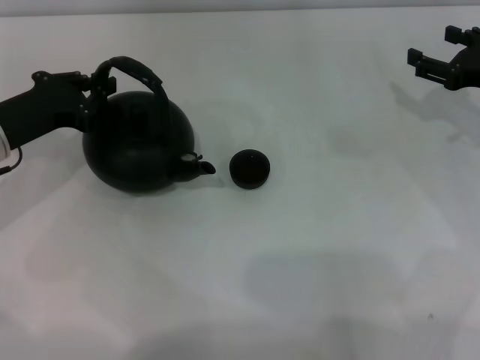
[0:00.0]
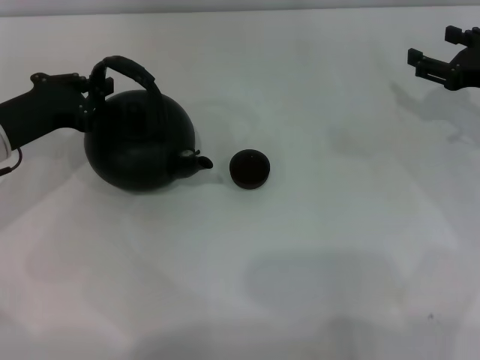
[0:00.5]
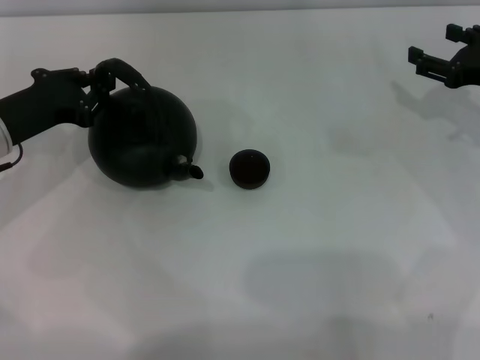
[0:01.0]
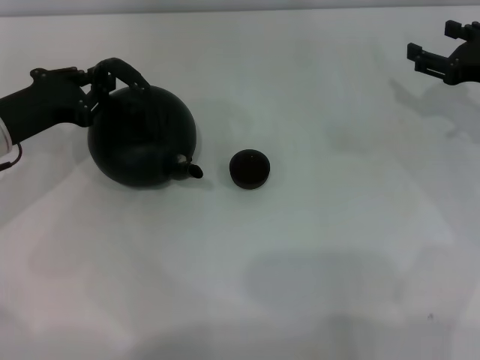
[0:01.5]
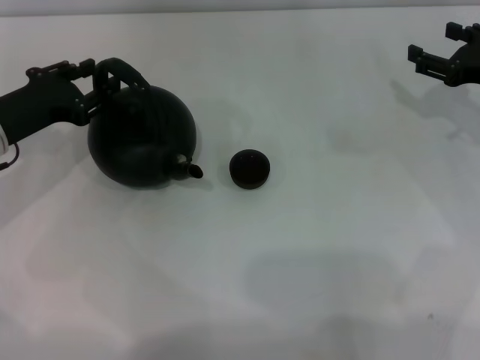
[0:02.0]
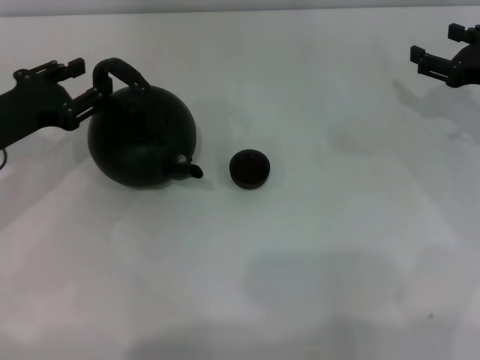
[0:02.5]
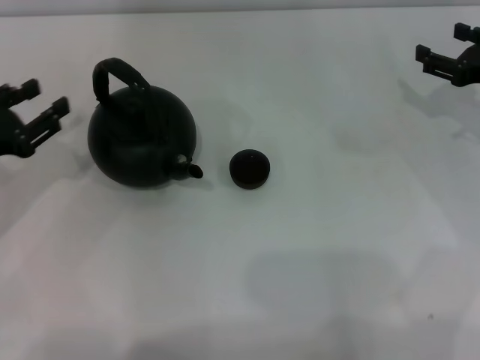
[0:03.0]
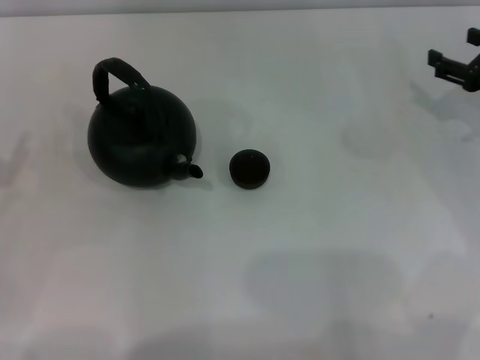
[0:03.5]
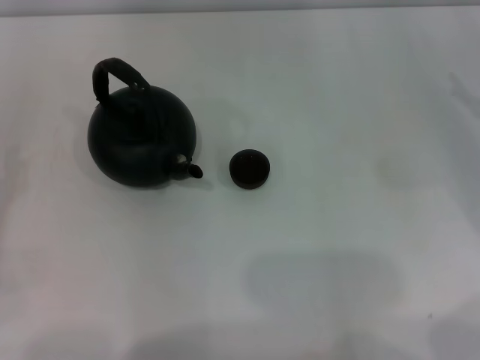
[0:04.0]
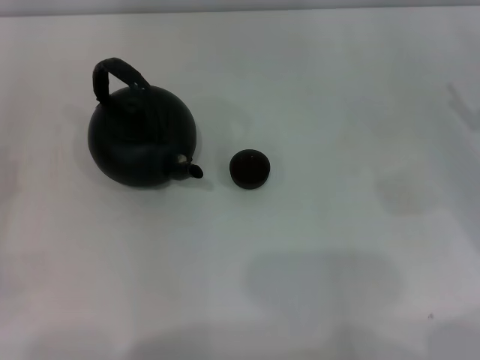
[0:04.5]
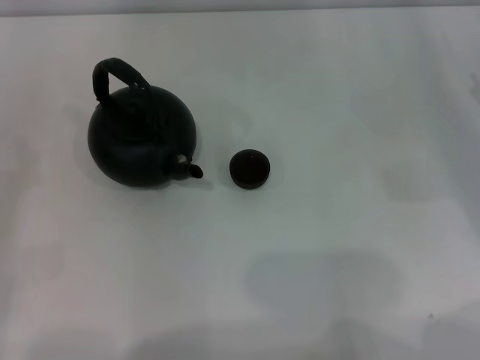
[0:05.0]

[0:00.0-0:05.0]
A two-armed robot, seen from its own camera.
Task of the whole recording: Grasp the handle of the teapot with one hand and pour tea into the teacup.
Step, 0:00.0 to 0:02.5: Put down the teapot with the left gripper.
0:00.0 to 0:02.5: The left gripper opens its fingers.
0:02.5 to 0:05.0: The right gripper shifts roughly 5 cm backward; the left gripper shifts about 15 cm backward and to the left.

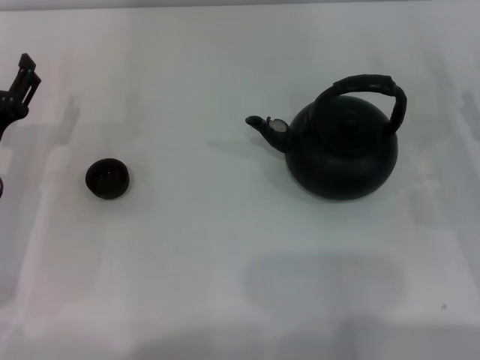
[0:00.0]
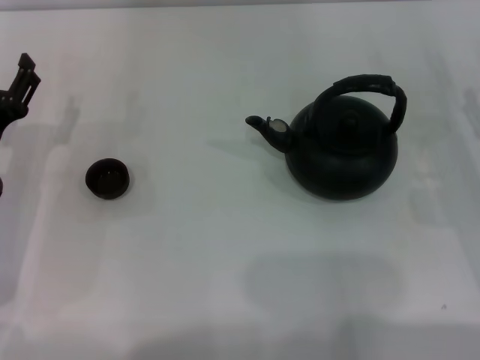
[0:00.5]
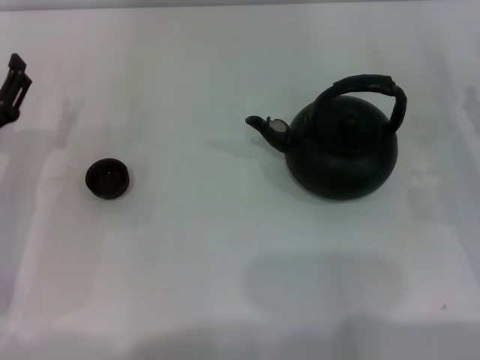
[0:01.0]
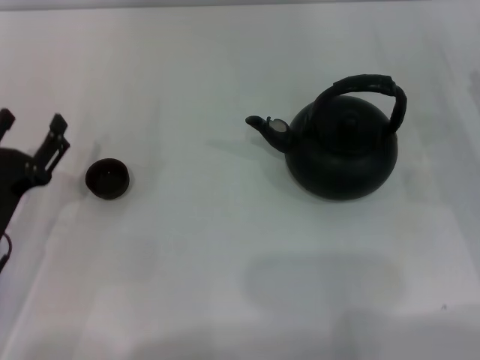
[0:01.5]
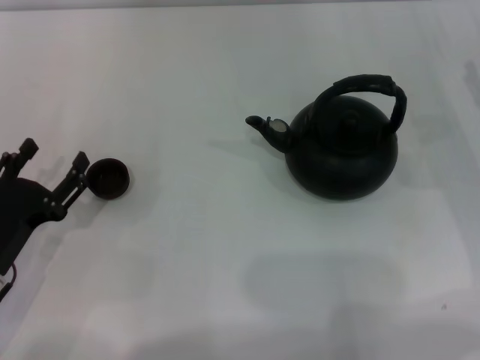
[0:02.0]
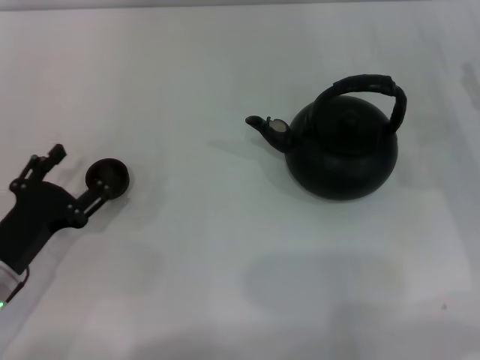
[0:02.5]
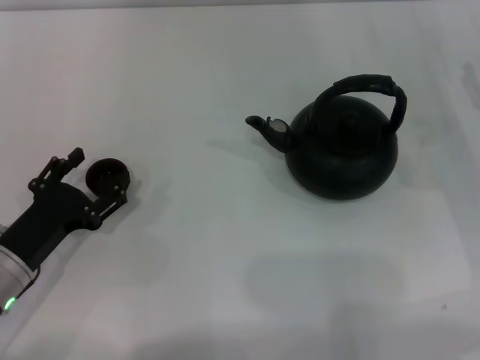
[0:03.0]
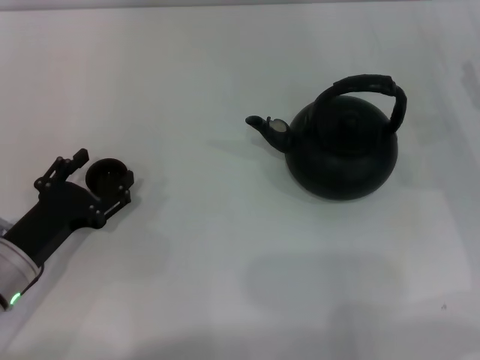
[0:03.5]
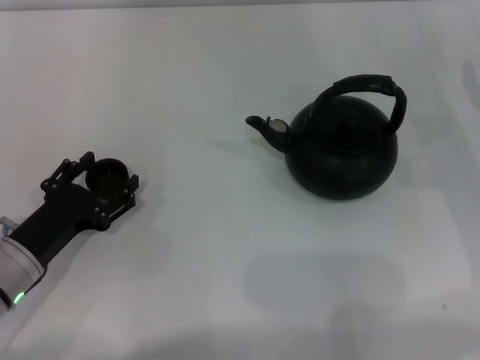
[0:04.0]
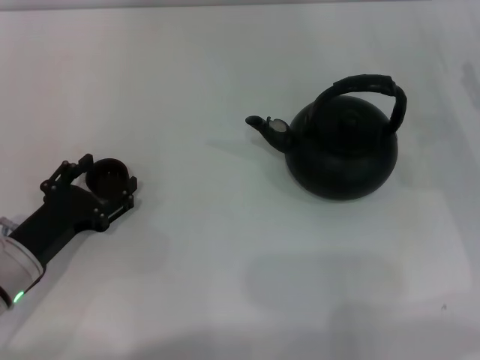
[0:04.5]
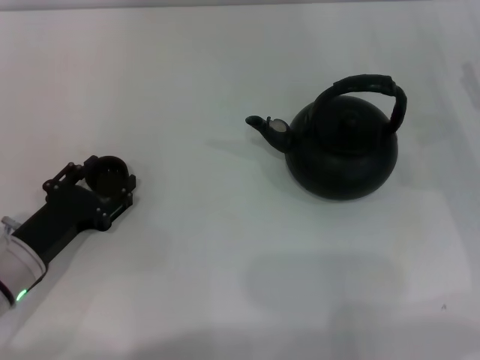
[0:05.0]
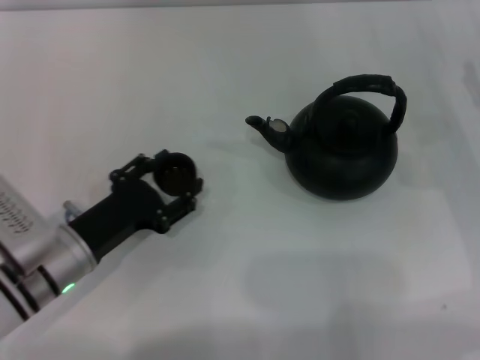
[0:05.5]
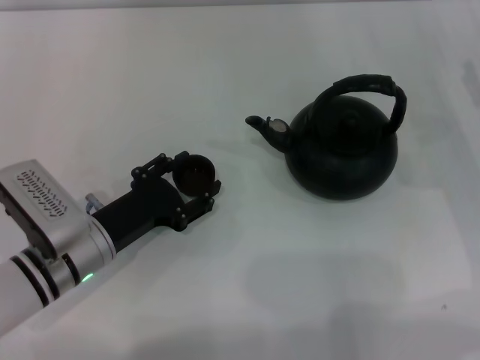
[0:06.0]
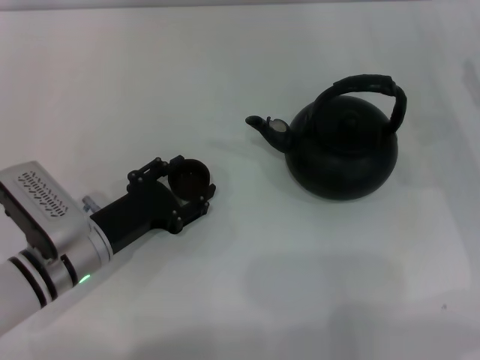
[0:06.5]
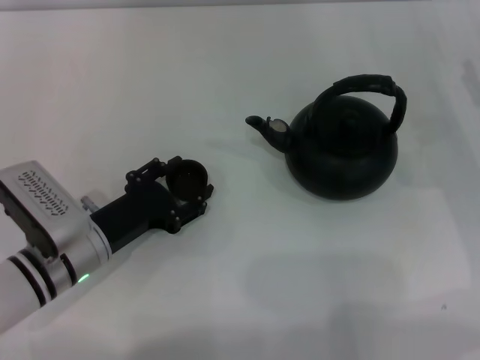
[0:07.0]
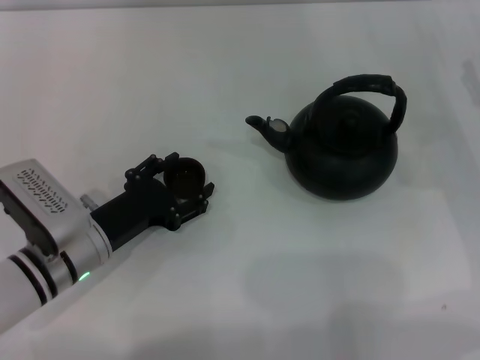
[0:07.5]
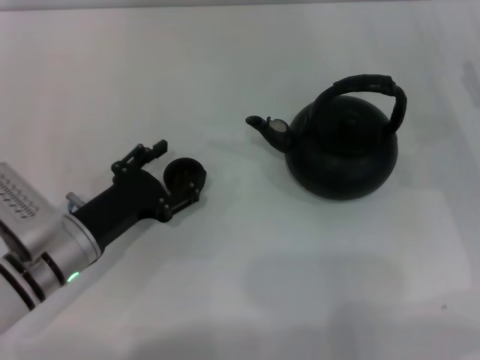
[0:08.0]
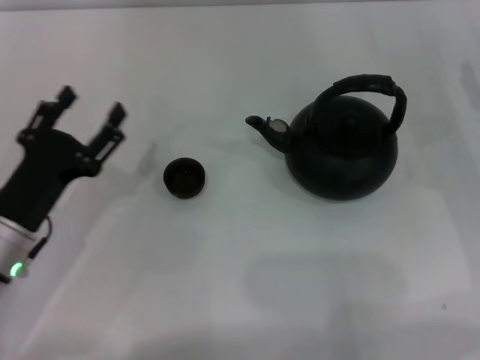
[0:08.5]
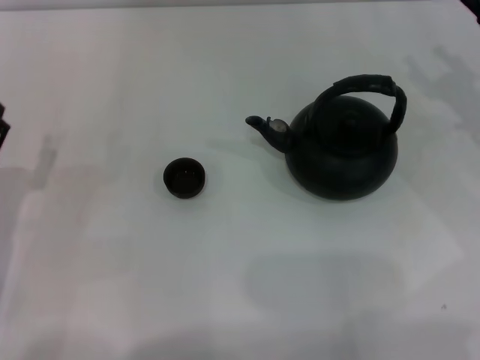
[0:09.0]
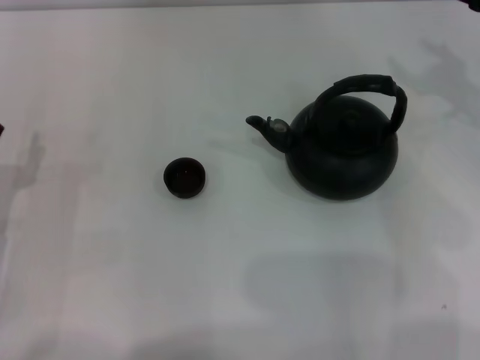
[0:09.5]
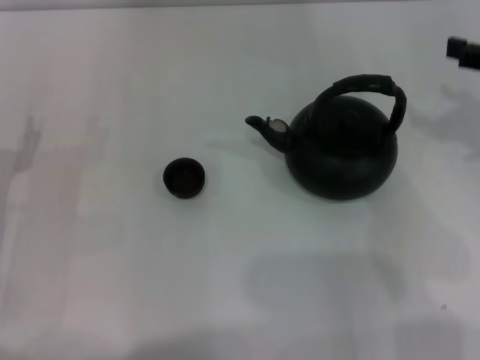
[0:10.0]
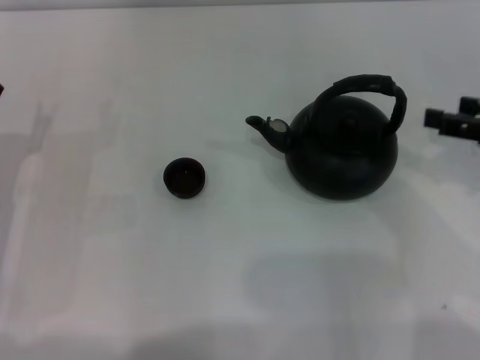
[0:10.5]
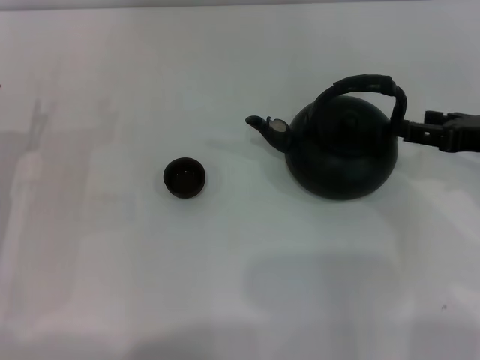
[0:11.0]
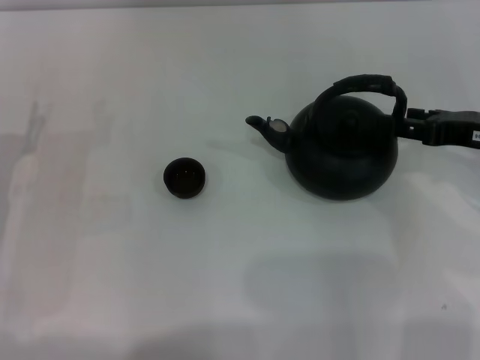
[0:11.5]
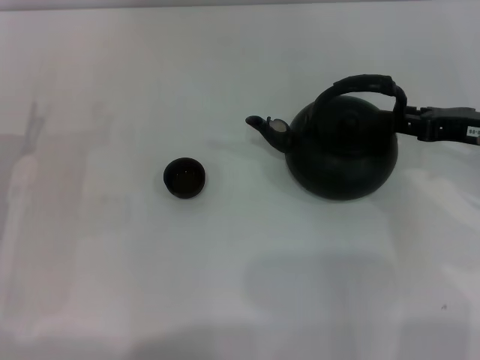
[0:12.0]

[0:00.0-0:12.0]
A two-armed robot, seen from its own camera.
Task of the whole recording: Grasp the handle of the teapot with one hand and pour tea into the teacup.
Step, 0:00.0 to 0:05.0: Pick up the teacup with the left gripper.
Step, 0:05.5 to 0:08.0: Place the teacup in the center of view with the left gripper.
0:00.0 to 0:02.0: The left gripper travels backward by approximately 10 cm.
0:02.0 to 0:04.0: The grippers move only a little.
0:04.0 to 0:06.0: The left gripper goes about 5 cm to the right, and closes.
0:06.0 to 0:08.0: The left gripper opens.
0:08.0 to 0:10.0: The left gripper moves to the left, about 10 cm; the right gripper goes roughly 15 cm upward.
0:10.0 to 0:12.0: The right gripper heads downward, covering some 10 cm.

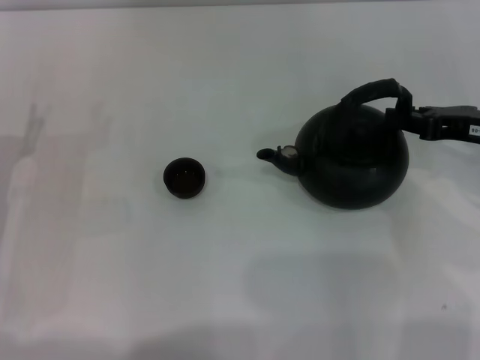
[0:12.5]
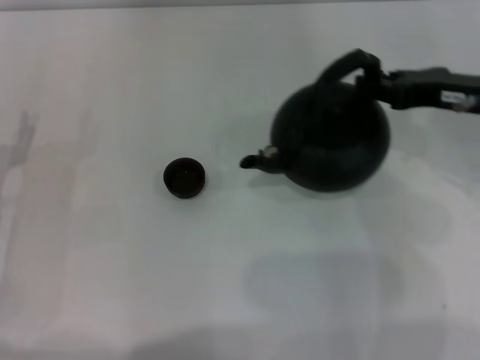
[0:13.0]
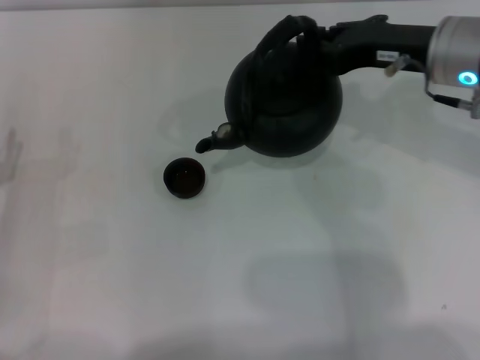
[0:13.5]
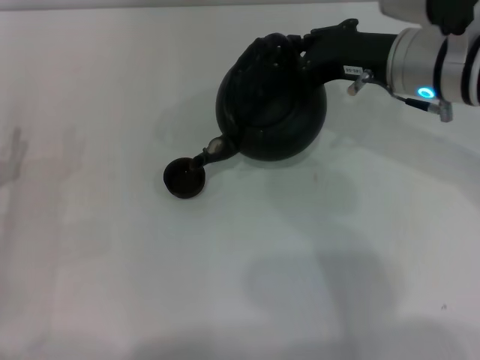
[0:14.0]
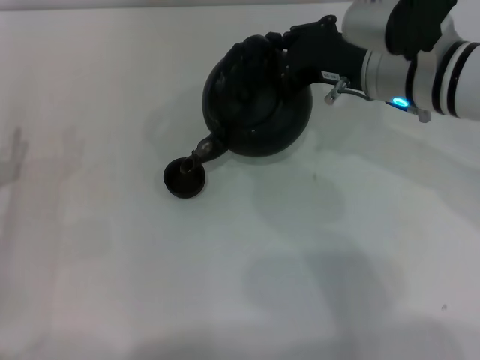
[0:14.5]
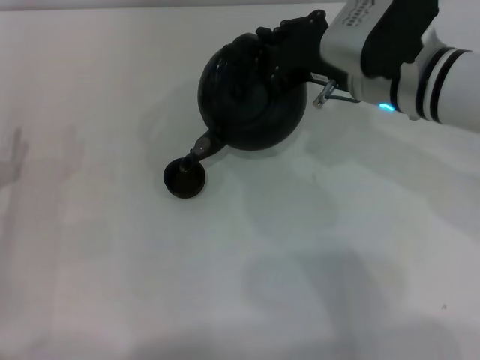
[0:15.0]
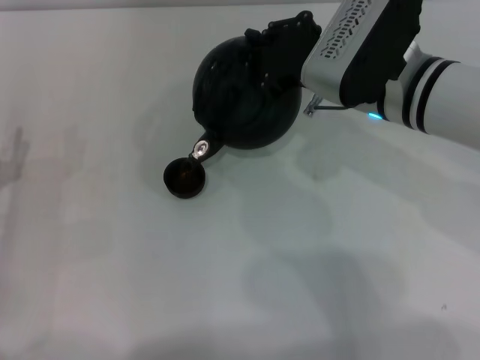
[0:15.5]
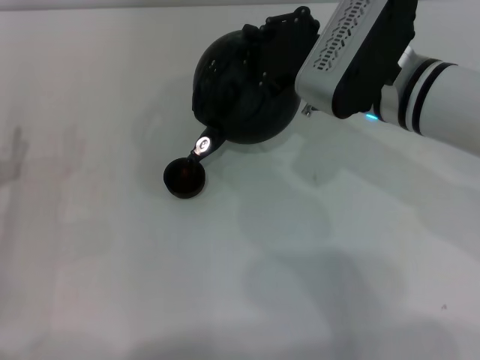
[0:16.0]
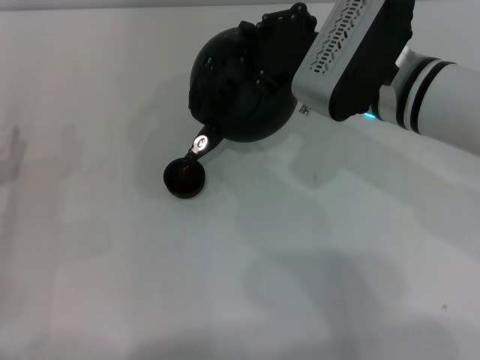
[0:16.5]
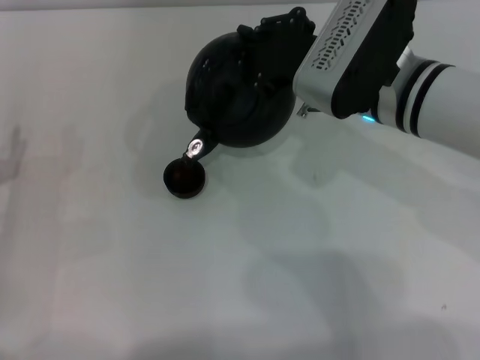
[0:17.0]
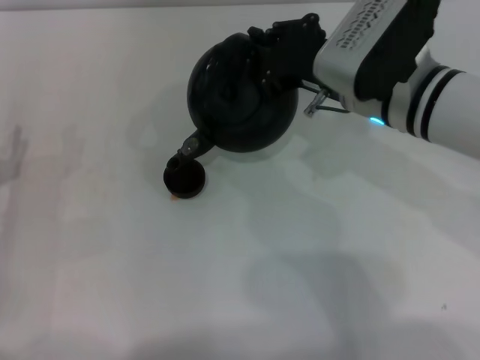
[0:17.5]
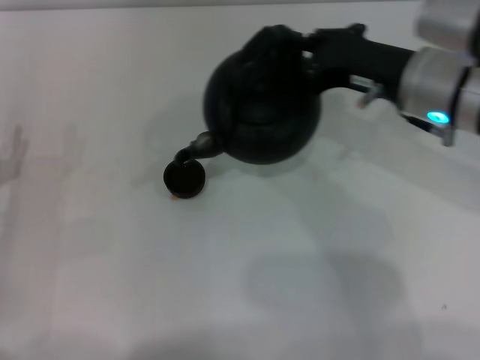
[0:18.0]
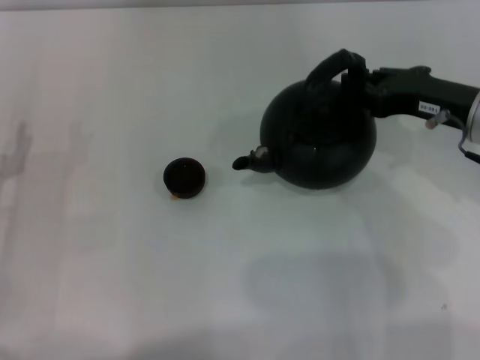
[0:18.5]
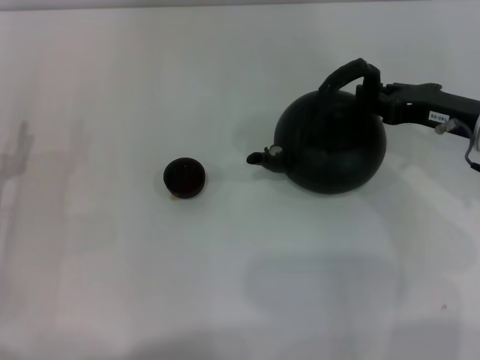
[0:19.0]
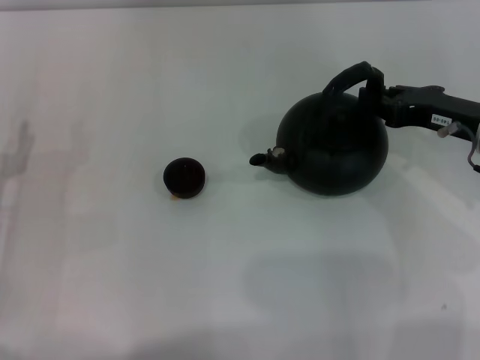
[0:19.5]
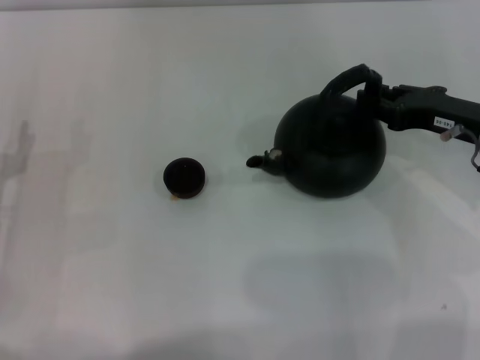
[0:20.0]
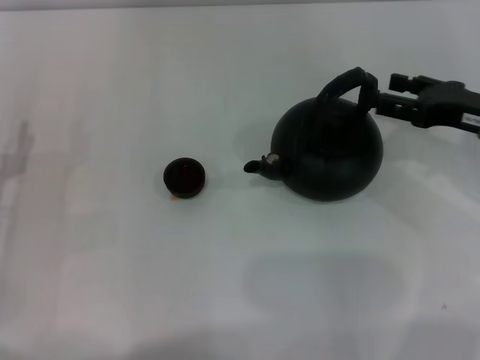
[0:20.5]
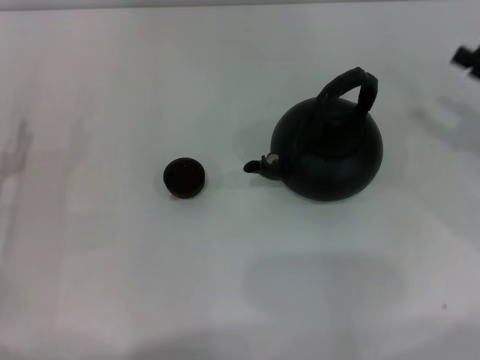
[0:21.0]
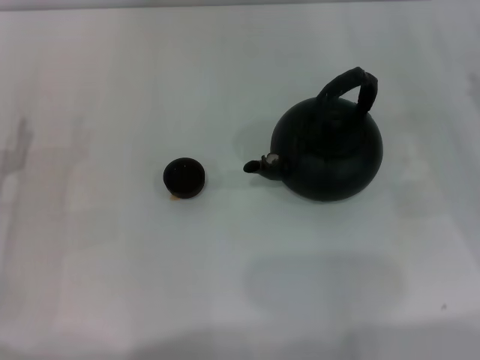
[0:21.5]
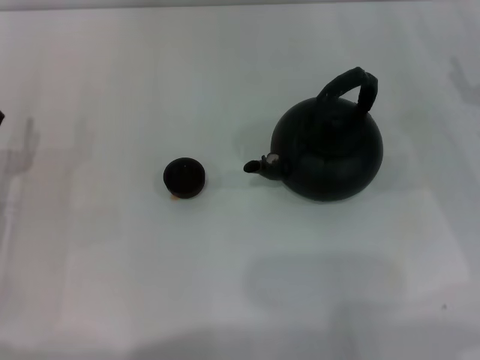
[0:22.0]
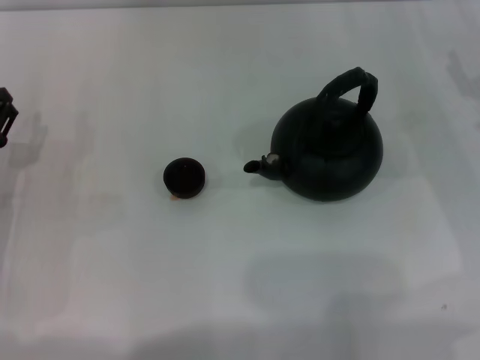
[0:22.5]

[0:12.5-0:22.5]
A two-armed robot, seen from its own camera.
Task of the whole recording: Grasp the handle of the teapot with one hand and pour tea into the teacup.
Step, 0:13.5 to 0:18.0: Put down the teapot with the right gripper.
Step, 0:18.5 to 0:20.5: Put down the teapot with the right gripper.
0:12.5 to 0:14.5: The right gripper goes about 15 cm to the left.
0:14.5 to 0:16.5: The grippers move only a little.
0:16.5 to 0:18.5: The right gripper shifts about 15 cm to the right.
0:18.5 to 0:20.5: The right gripper opens its fingers.
0:20.5 to 0:22.5: The right gripper moves some 5 cm.
